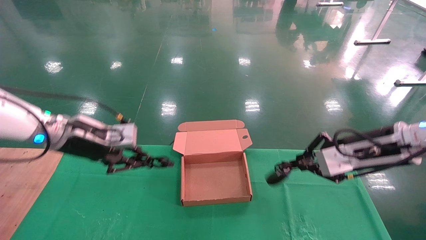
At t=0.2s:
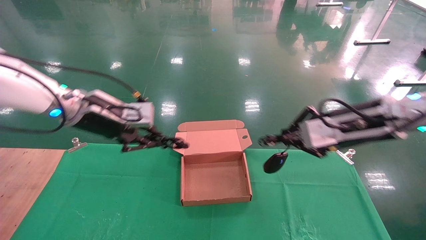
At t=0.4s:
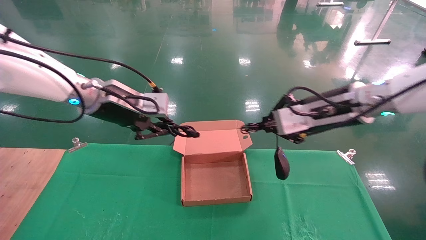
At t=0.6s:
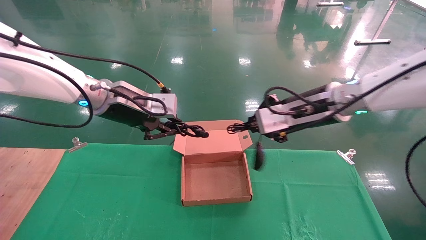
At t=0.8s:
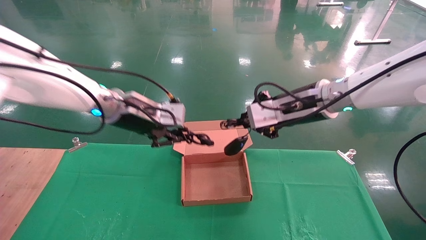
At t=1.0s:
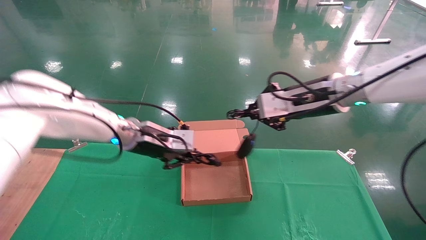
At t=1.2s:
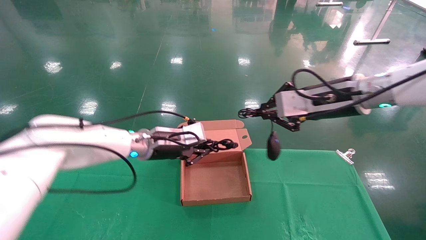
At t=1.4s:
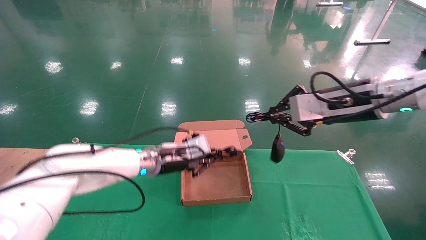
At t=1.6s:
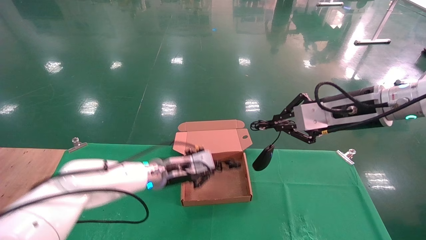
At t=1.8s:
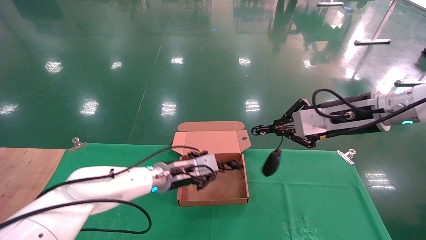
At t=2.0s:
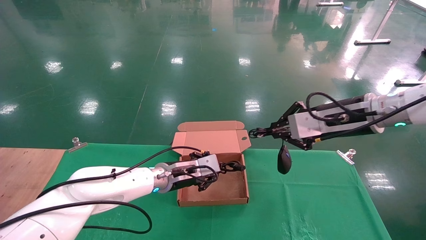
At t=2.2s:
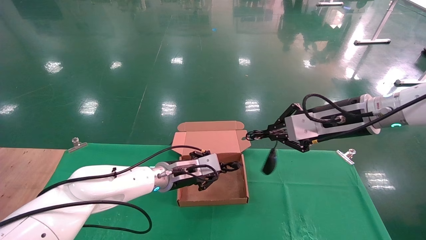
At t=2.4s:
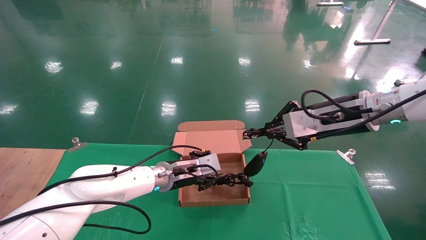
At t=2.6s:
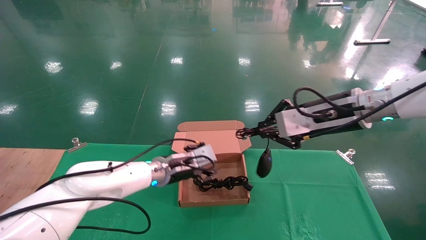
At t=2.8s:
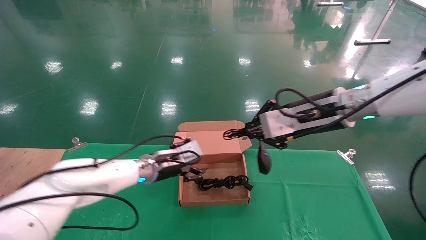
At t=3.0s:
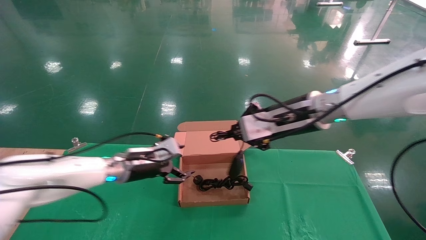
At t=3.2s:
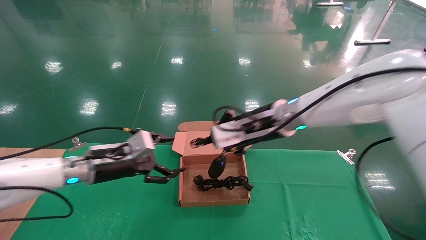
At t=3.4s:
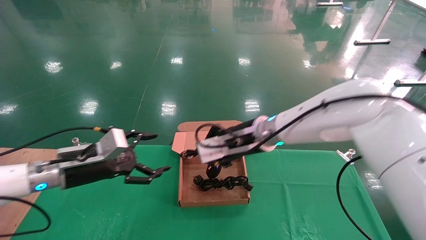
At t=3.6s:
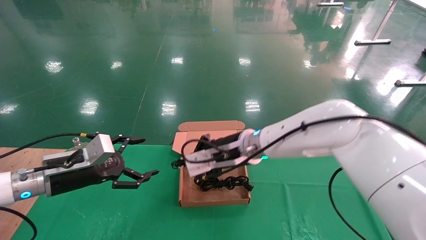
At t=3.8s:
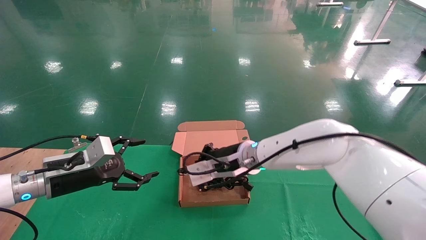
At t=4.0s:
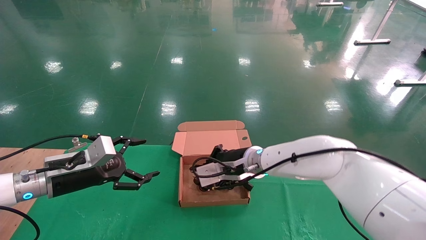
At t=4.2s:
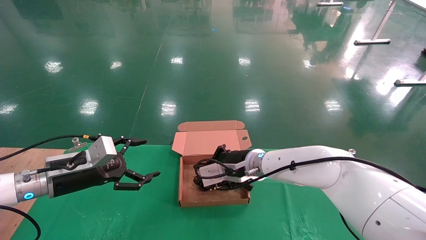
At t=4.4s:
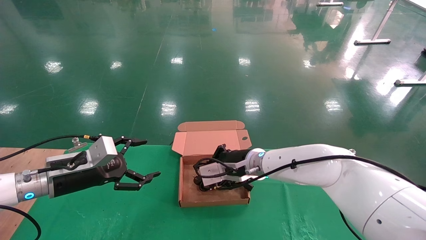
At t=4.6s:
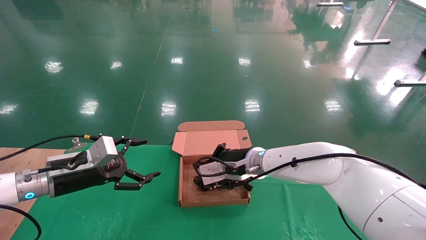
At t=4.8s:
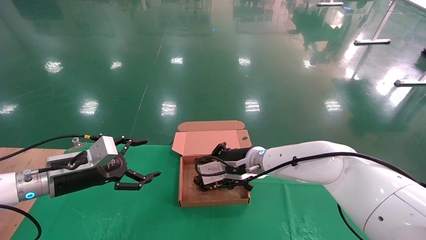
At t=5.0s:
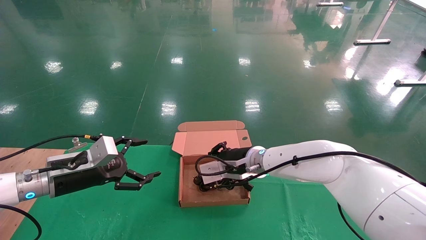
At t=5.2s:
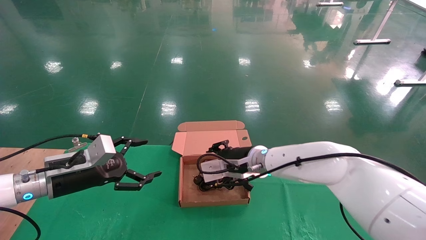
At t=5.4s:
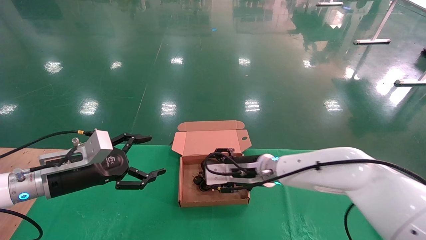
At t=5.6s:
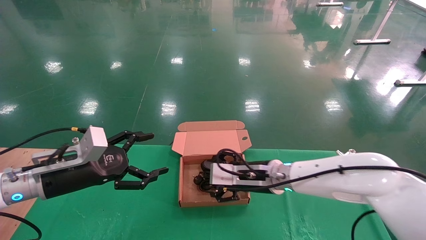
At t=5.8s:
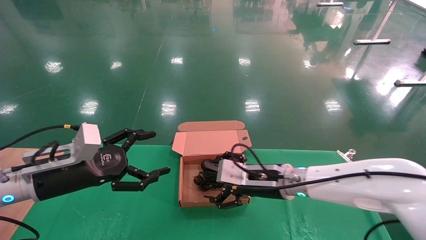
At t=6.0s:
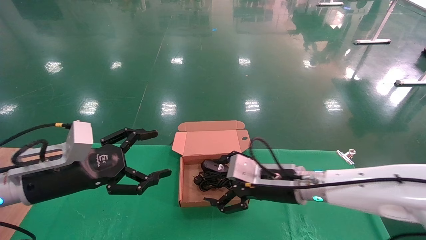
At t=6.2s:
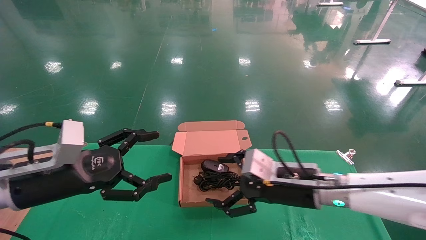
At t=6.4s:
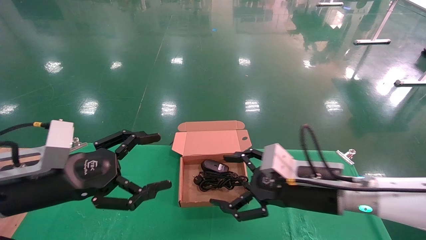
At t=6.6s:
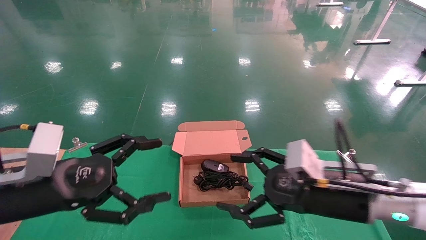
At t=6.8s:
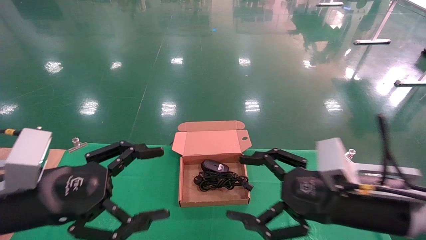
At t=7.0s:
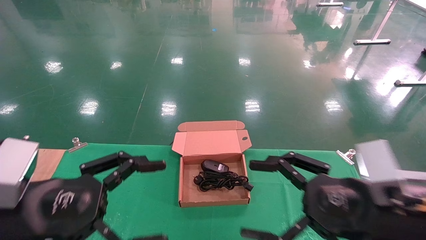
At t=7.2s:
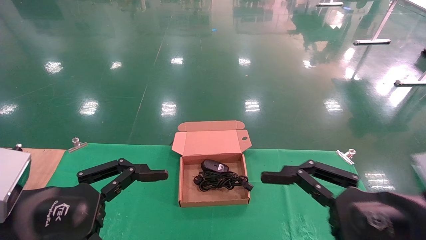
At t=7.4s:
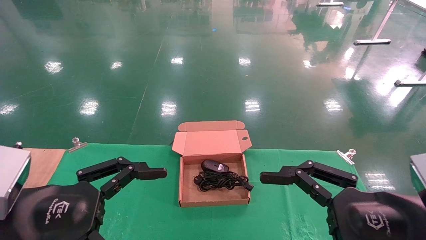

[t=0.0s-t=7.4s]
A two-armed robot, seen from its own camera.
Step, t=0.0s to t=4.2s: Place the mouse and power cord into the box.
t=0.0s to t=1.4s: The left gripper goes some 20 cm to the right, downward and forward. The right gripper shifts some 5 cm upward.
t=1.4s to t=3.0s: Both grippers travel together to the left, approximately 10 cm. The left gripper opens.
t=3.0s to t=4.4s: The left gripper is displaced to the left and backward by about 15 cm. The right gripper travels downward, to the left and forward by some 20 cm.
t=4.4s to t=6.0s: The right gripper moves backward and to the right, about 10 cm, and opens its fingers; the left gripper shifts some 5 cm backward.
t=6.0s to t=7.4s: The right gripper heads backward and to the right, covering about 25 cm. The left gripper is displaced backward by about 15 cm.

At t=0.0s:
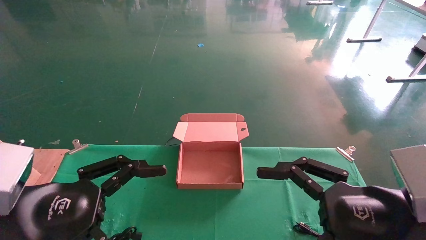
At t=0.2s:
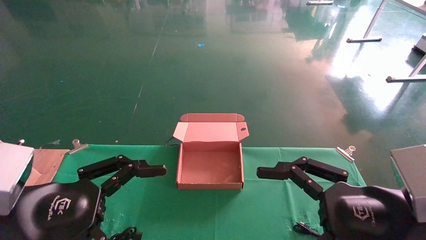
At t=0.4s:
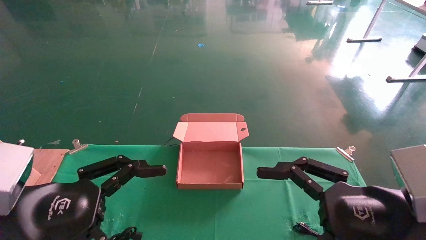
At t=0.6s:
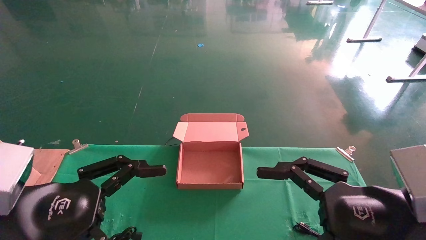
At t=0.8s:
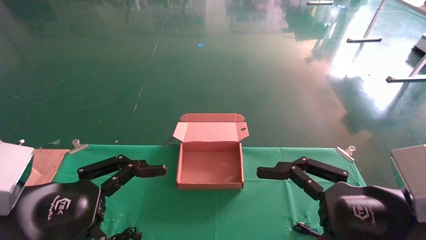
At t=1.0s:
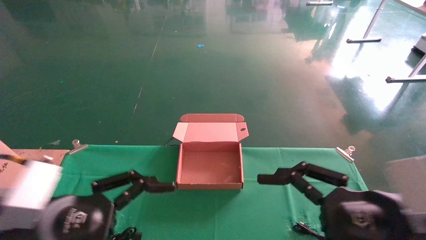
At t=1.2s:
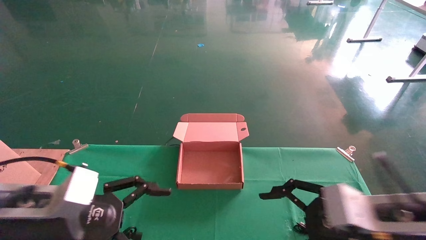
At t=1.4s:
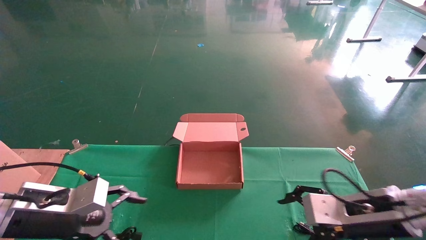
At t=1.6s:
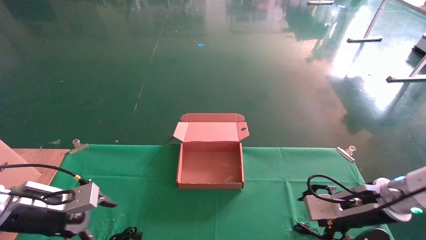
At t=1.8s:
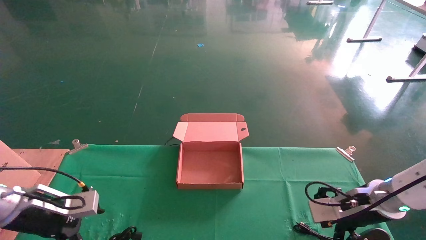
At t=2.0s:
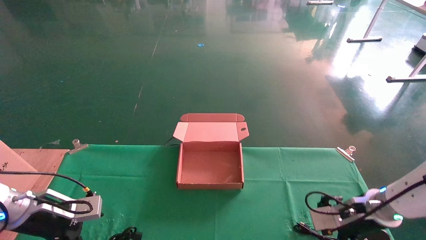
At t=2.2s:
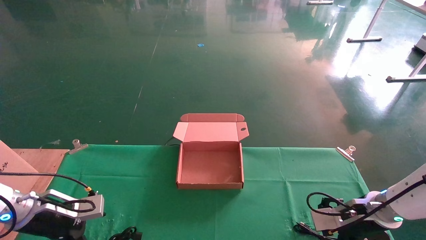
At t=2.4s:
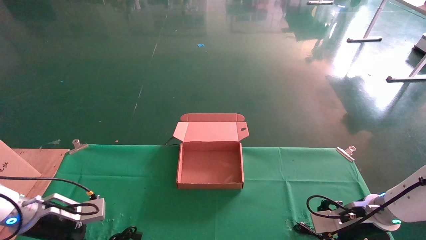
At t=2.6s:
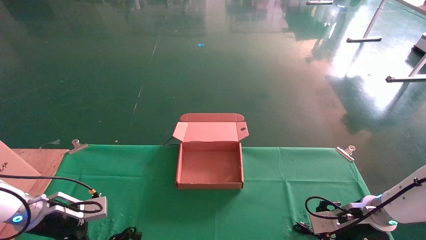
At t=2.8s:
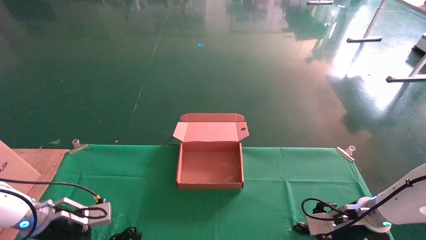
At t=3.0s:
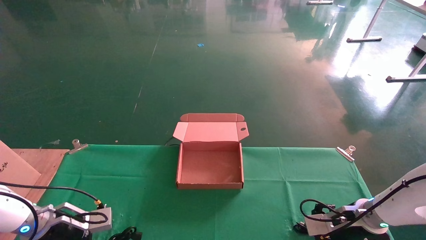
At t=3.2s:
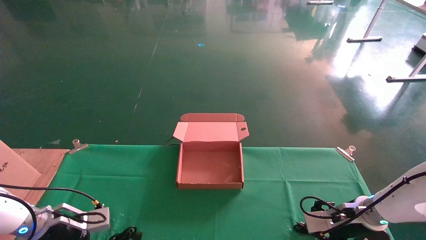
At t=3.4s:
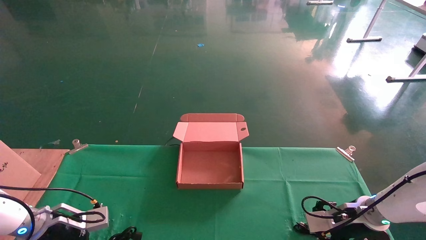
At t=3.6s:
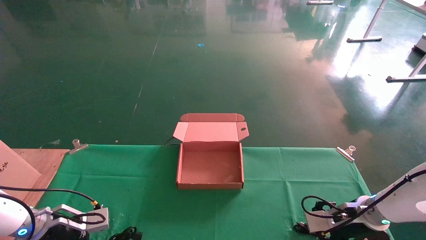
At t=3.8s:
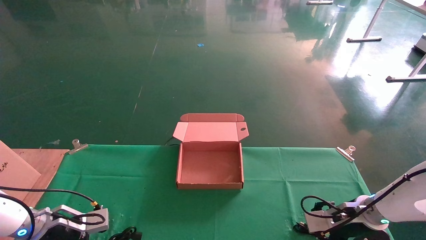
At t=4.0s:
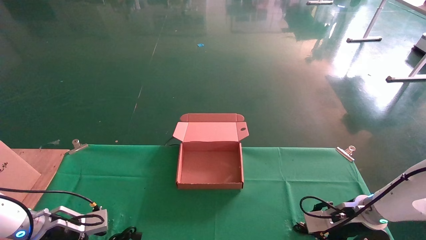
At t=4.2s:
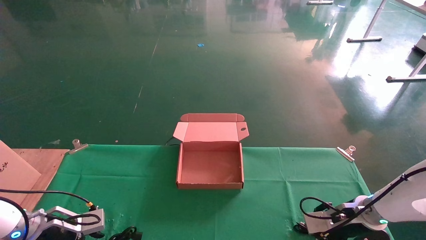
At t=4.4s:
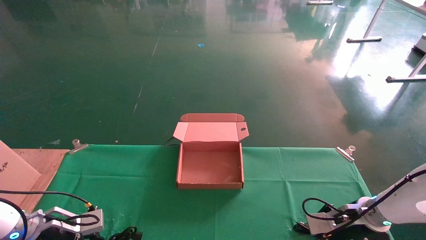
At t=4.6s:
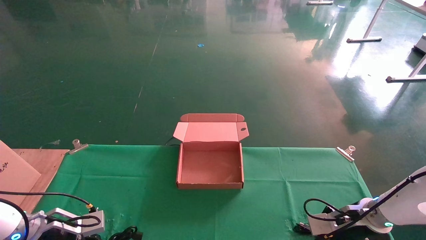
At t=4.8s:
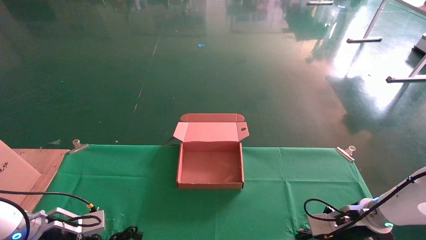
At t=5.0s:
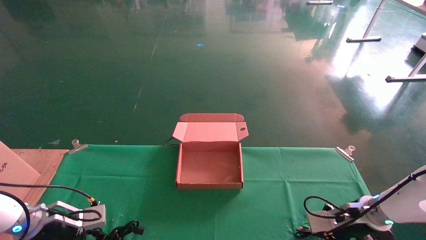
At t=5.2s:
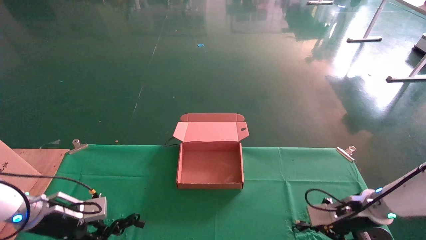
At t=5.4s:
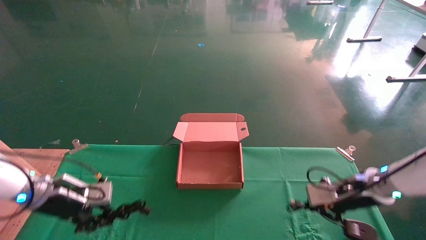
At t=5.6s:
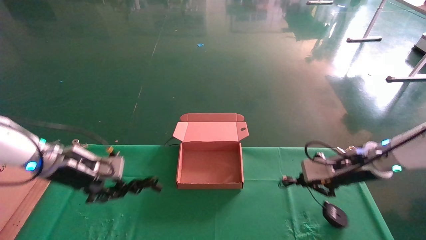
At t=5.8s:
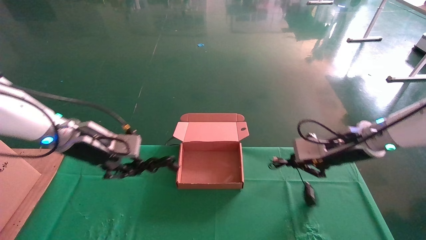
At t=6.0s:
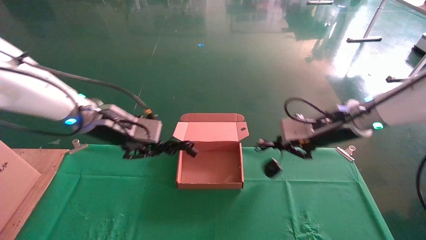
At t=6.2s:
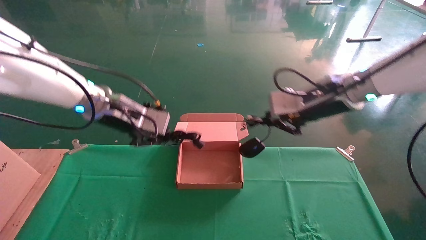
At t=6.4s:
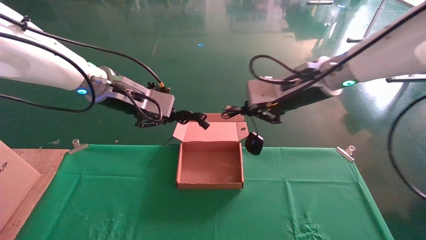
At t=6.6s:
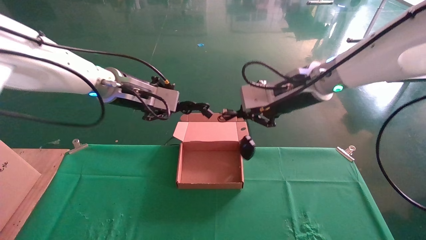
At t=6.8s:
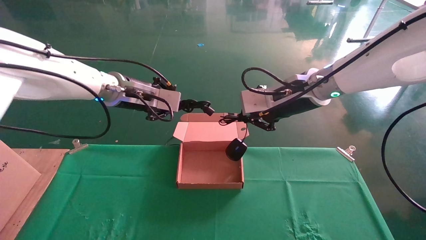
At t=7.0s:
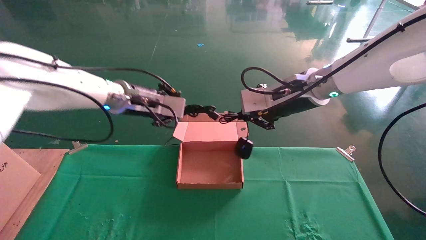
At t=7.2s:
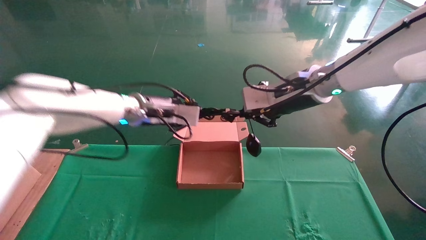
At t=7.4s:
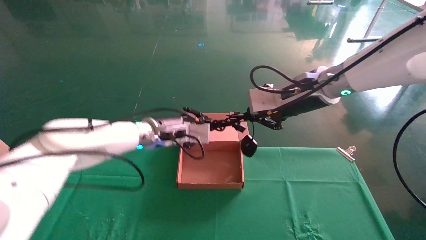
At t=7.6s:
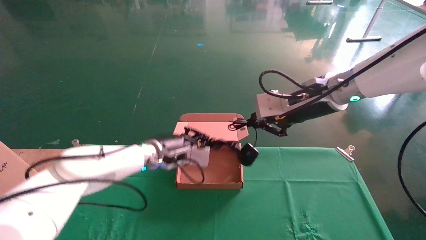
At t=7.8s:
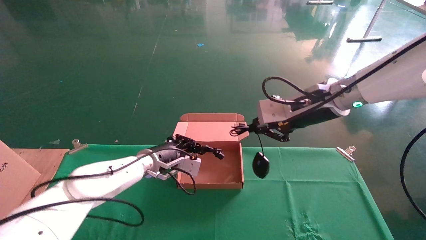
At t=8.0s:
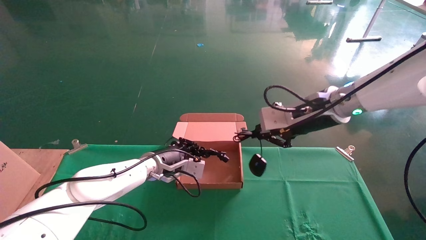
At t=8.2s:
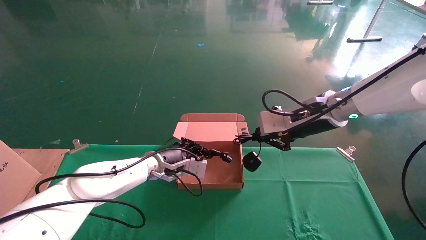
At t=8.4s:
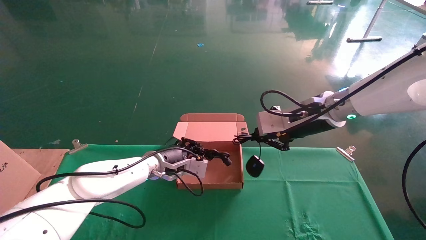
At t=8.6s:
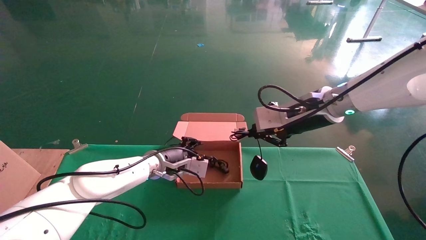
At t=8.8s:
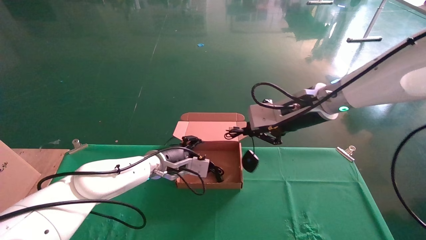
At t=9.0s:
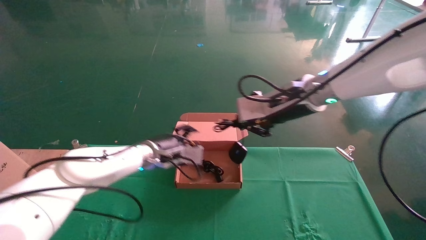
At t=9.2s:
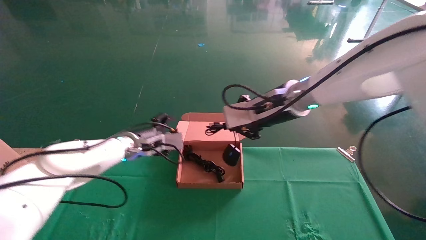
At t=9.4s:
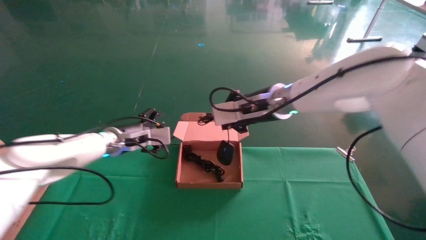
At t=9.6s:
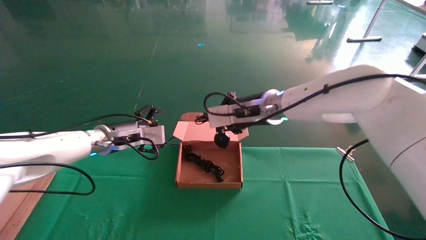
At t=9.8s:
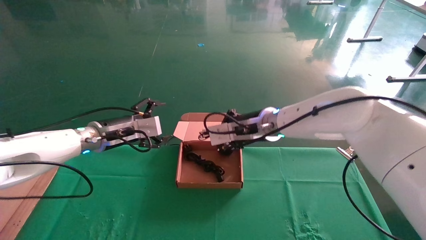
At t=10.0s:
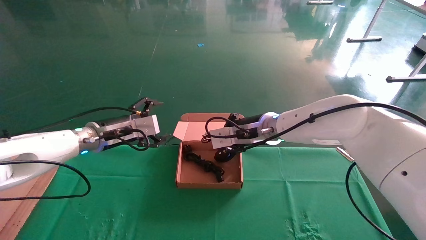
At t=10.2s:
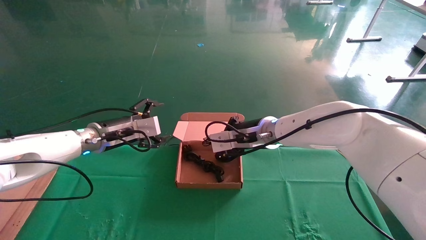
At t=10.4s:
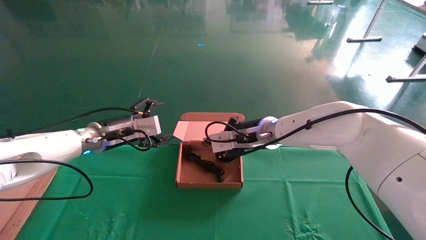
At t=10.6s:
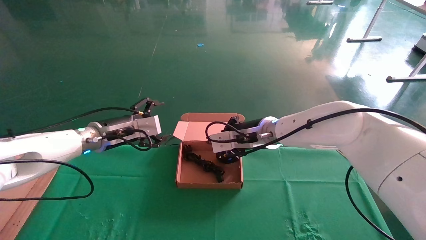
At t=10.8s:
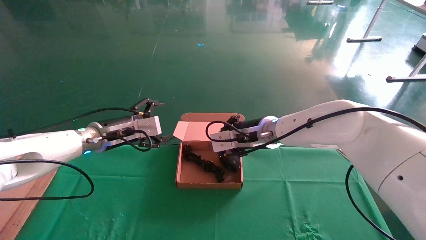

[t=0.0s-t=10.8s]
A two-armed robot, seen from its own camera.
Step, t=2.2s to t=6.2s: Grab and lift both the mouse and power cord from the accessory packaging area at the same time.
t=0.0s to t=1.6s: The left gripper heads forward, downward and to the left, covering some 20 cm. Meanwhile the right gripper moves forward and downward, about 20 cm.
t=1.6s to t=3.0s: Both grippers move downward and forward, about 10 cm.
t=3.0s to t=4.6s: The left gripper closes its fingers. Meanwhile the right gripper closes.
t=4.6s to t=6.2s: The right gripper is displaced upward and to the left by roughly 30 cm. Meanwhile the left gripper goes about 30 cm upward and to the right.
t=6.2s to t=7.8s: The left gripper heads downward, forward and to the right, covering roughly 20 cm.
t=7.8s to t=9.2s: The grippers both shift to the left by roughly 5 cm. The left gripper opens its fingers.
t=9.2s to t=10.8s: The left gripper is displaced to the left by roughly 5 cm, while the right gripper goes some 10 cm downward.
